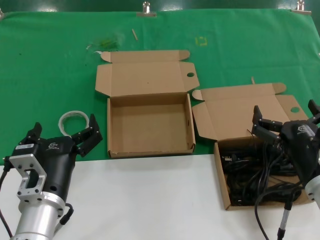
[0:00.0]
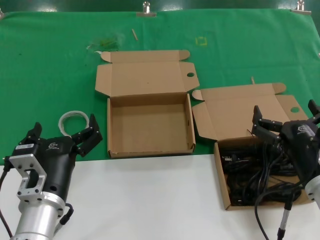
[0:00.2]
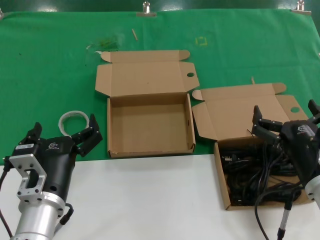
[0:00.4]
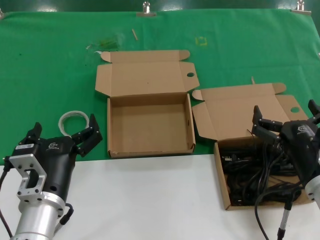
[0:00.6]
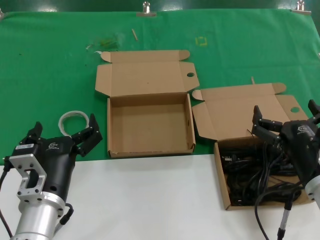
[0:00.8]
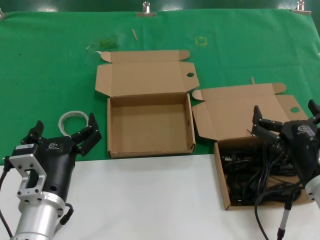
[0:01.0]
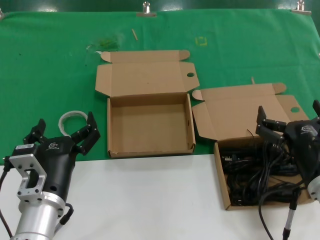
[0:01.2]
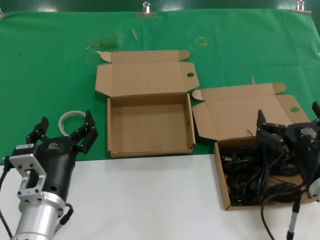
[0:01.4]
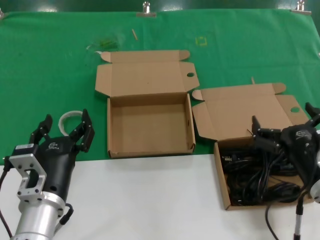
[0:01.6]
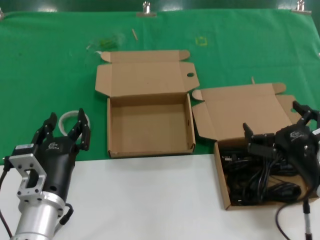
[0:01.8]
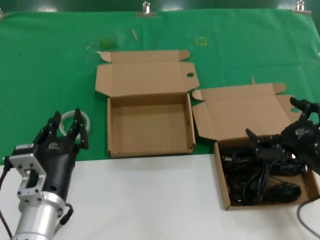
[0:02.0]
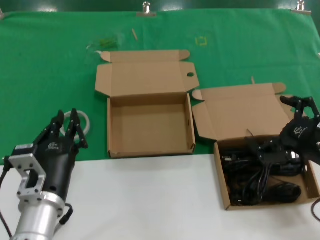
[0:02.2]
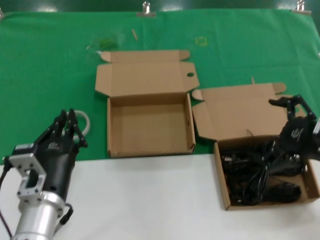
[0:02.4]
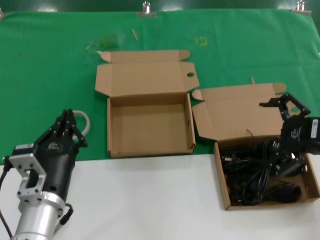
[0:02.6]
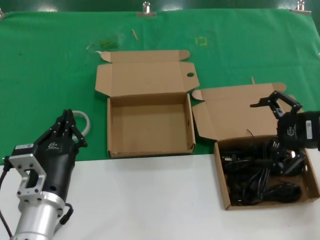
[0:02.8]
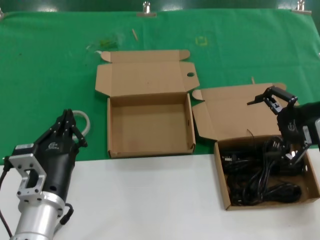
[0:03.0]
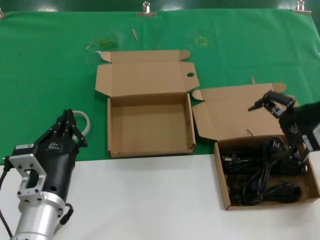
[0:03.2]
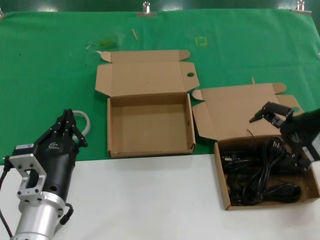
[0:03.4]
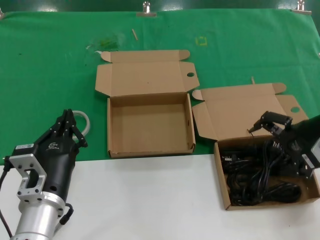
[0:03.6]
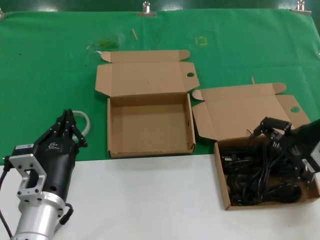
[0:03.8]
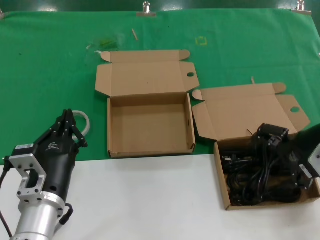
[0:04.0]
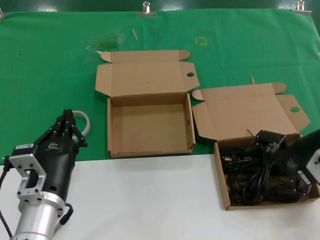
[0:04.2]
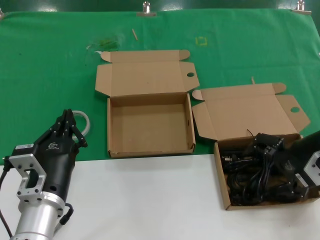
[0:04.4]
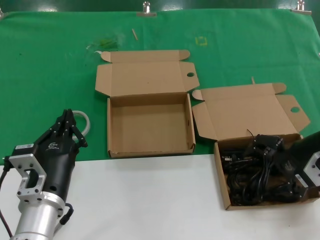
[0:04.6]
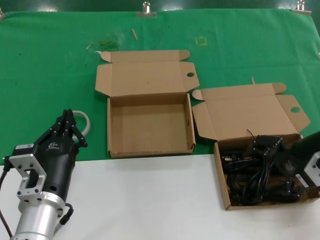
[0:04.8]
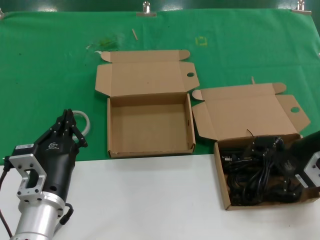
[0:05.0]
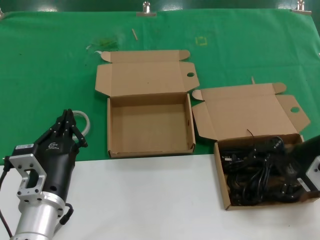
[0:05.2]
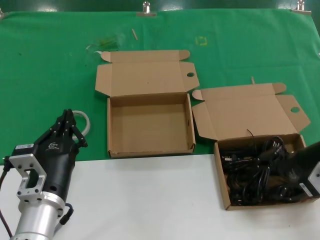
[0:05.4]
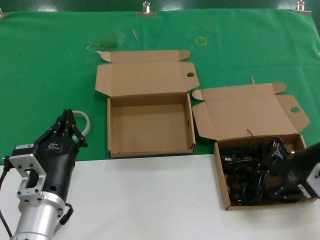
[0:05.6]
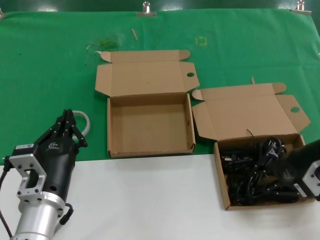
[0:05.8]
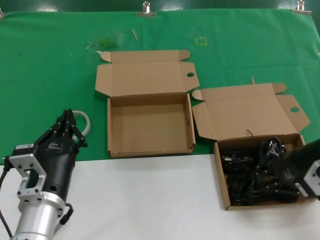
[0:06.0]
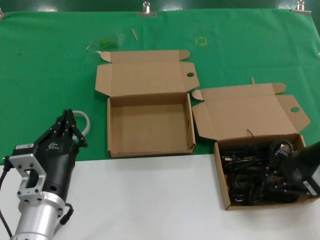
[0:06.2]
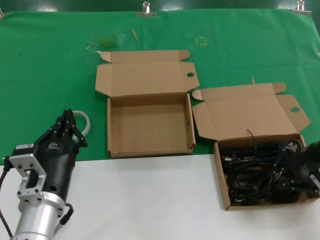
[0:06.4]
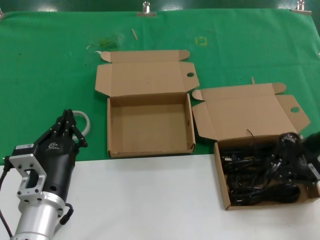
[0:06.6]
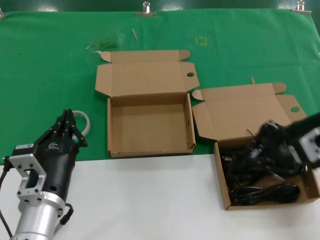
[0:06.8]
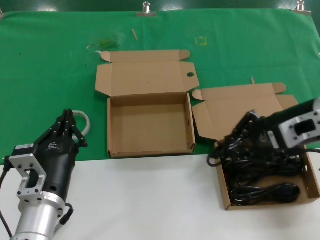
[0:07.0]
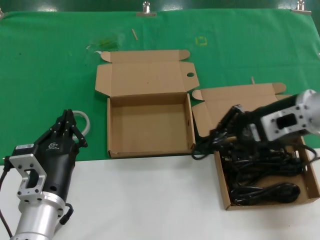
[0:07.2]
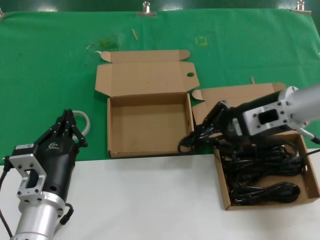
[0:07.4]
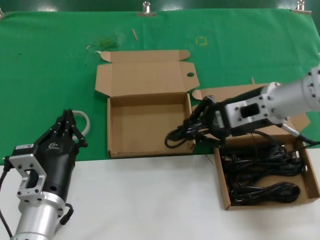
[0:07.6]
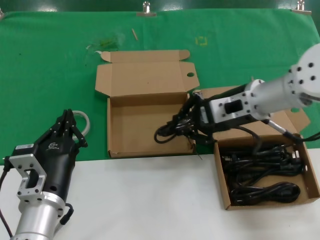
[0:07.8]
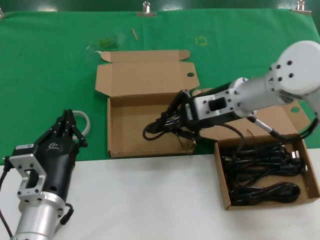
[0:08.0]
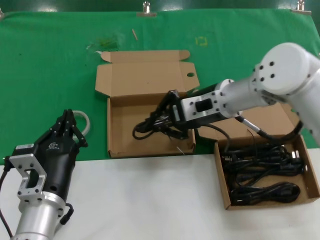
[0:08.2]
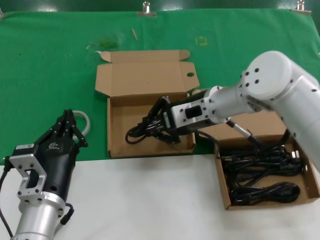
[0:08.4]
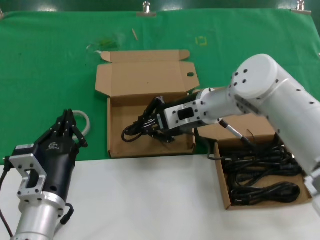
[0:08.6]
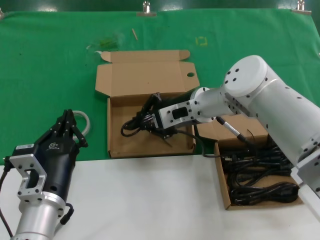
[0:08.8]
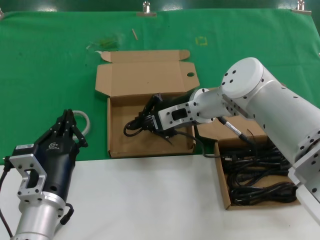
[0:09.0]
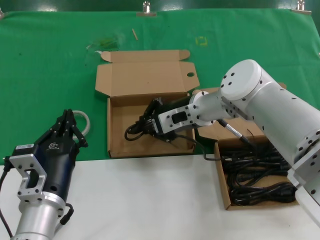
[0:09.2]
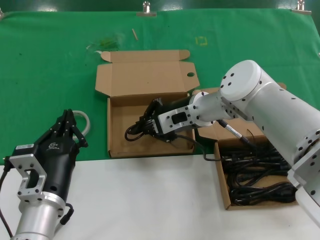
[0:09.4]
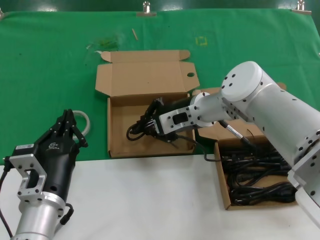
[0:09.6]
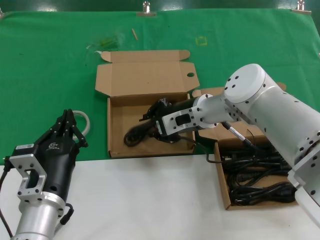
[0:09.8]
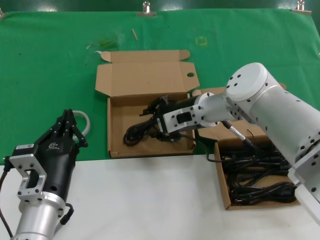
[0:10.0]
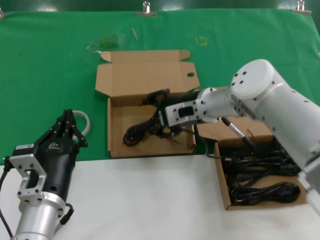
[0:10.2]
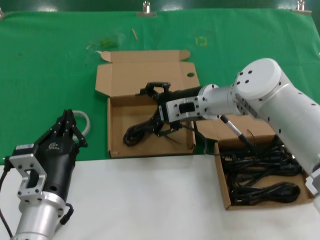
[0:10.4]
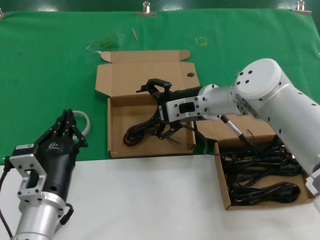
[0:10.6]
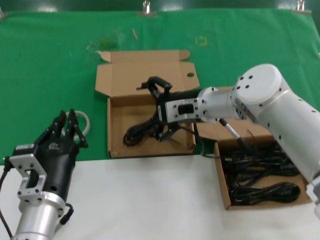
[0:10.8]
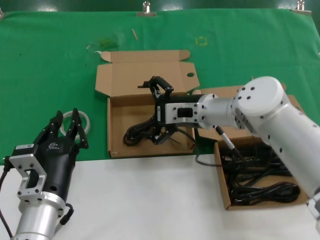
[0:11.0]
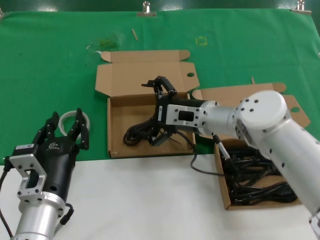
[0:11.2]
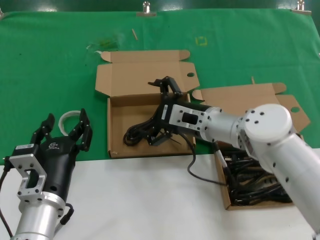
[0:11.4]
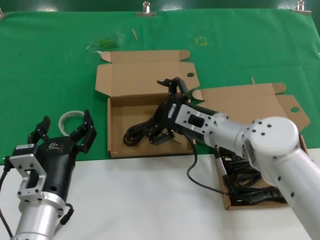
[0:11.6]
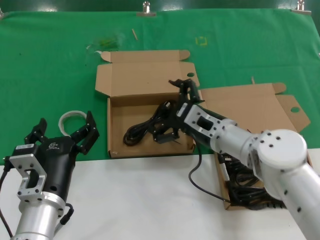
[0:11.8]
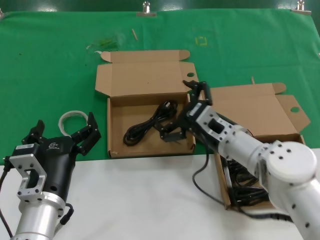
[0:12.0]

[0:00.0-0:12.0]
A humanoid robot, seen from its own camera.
Task of the whole recording: take the parts from the box containing them and put them into an empty box.
Step, 0.0 to 5.8 s: Grasp the data cable.
Step, 6.0 to 9.8 s: Place the data cable in the another box.
0.0 to 1.6 s: The hands move only a little.
1.6 to 3.0 s: The right hand travels upward, forward and to the right by approximately 20 cm.
3.0 to 4.4 s: The right hand heads downward, covering about 5 cm.
4.4 to 6.0 s: The hands make only small movements.
6.0 to 7.6 s: The right hand is displaced to the left and upward by some 15 cm.
7.6 to 9.0 s: The right hand goes about 15 cm to the left, forward and downward.
9.0 to 10.4 s: The hands make only small movements.
10.4 to 12.0 s: The right hand travels backward and downward by approximately 10 cm.

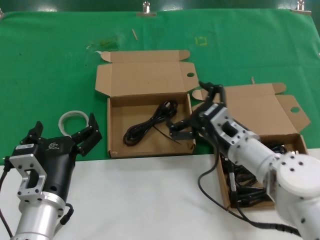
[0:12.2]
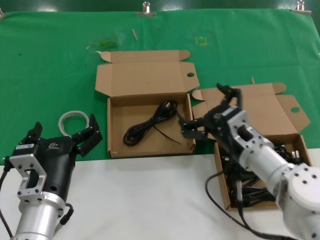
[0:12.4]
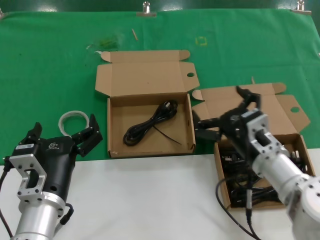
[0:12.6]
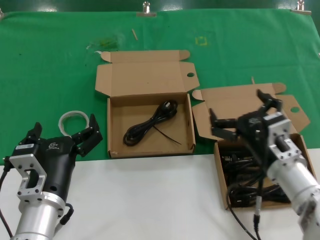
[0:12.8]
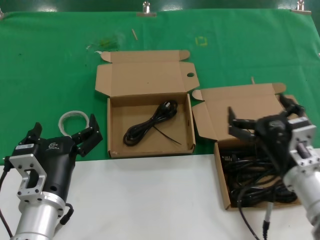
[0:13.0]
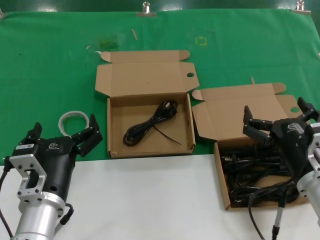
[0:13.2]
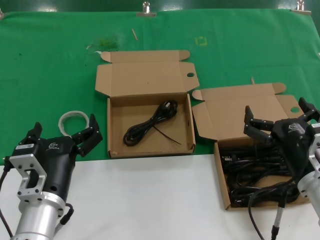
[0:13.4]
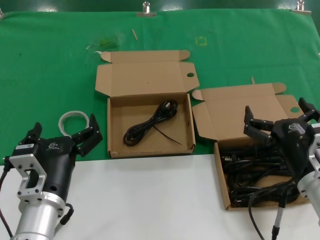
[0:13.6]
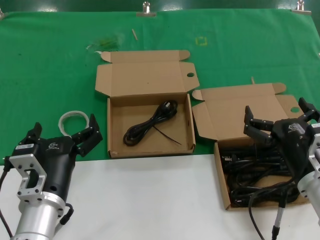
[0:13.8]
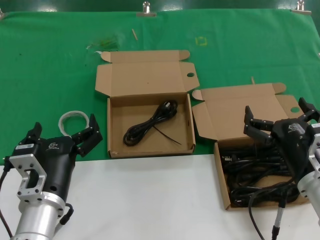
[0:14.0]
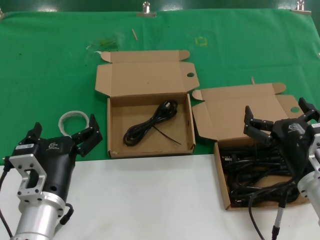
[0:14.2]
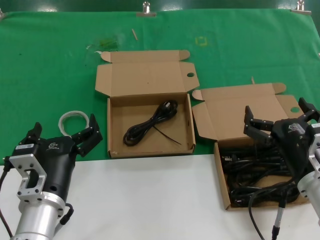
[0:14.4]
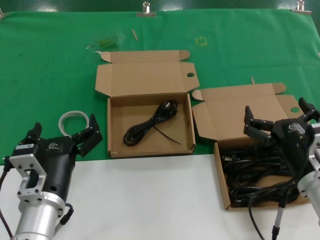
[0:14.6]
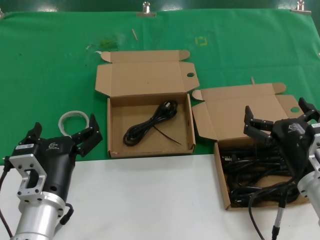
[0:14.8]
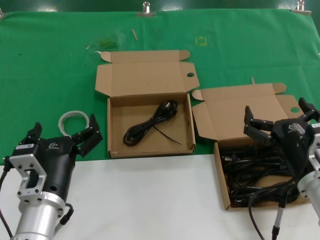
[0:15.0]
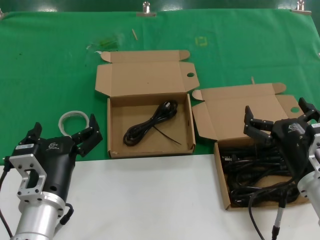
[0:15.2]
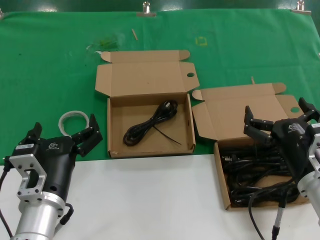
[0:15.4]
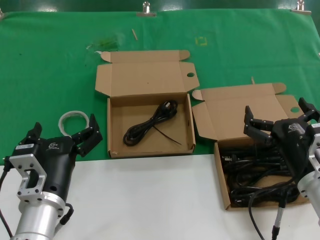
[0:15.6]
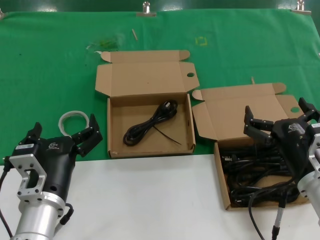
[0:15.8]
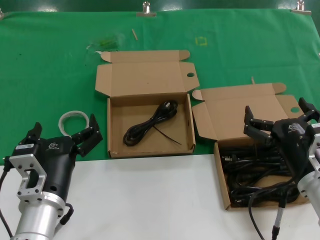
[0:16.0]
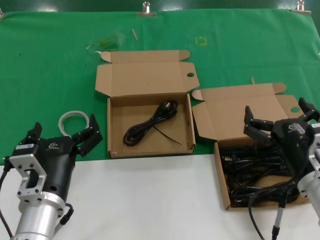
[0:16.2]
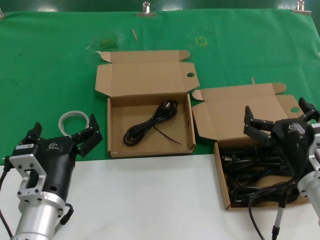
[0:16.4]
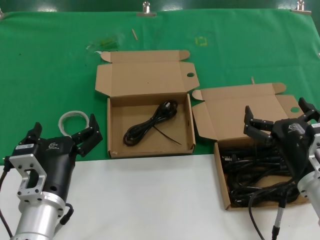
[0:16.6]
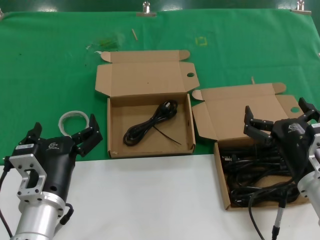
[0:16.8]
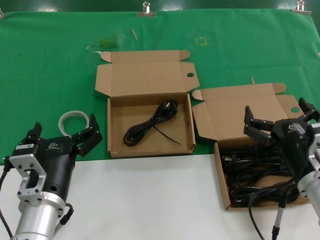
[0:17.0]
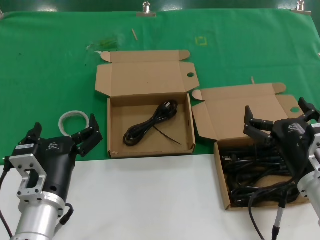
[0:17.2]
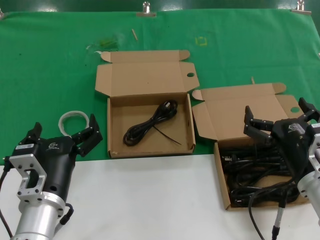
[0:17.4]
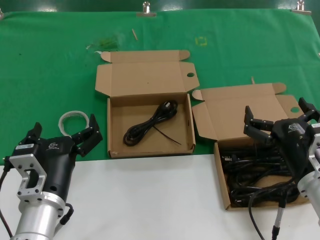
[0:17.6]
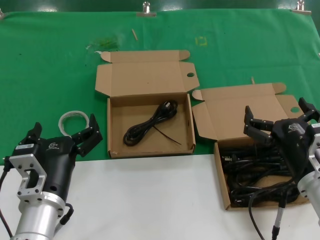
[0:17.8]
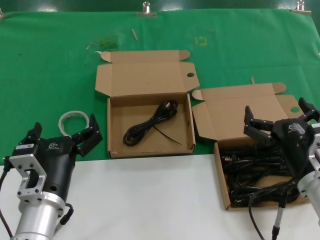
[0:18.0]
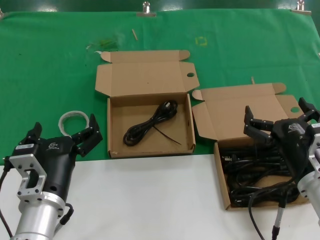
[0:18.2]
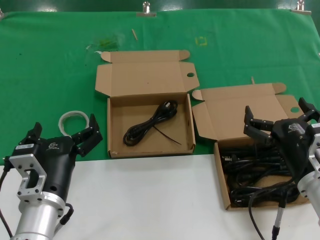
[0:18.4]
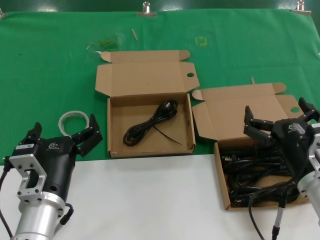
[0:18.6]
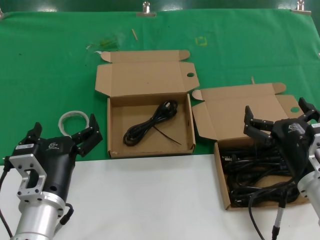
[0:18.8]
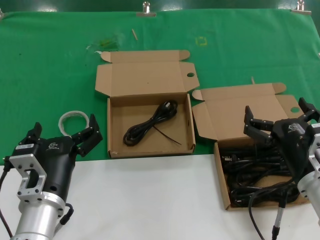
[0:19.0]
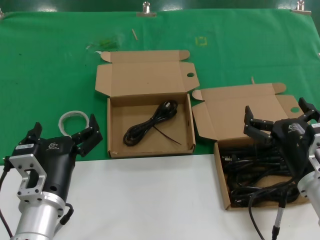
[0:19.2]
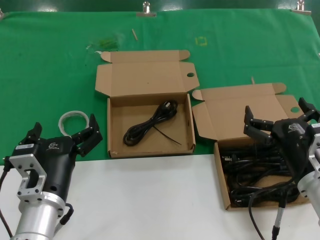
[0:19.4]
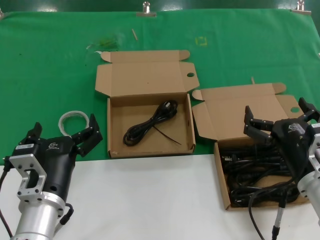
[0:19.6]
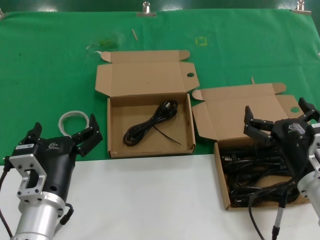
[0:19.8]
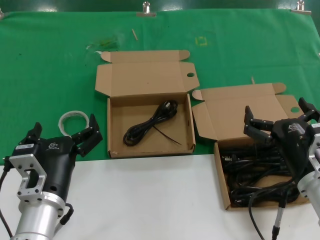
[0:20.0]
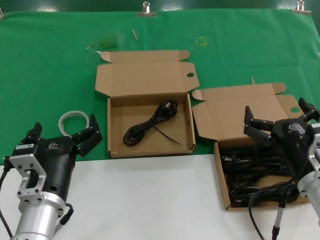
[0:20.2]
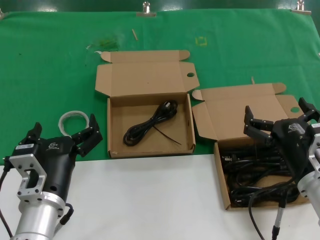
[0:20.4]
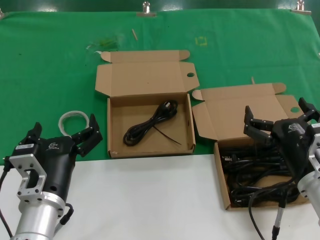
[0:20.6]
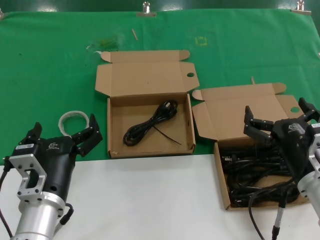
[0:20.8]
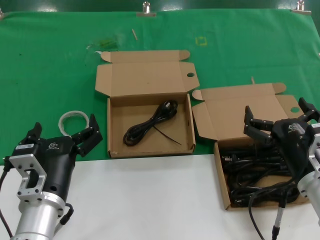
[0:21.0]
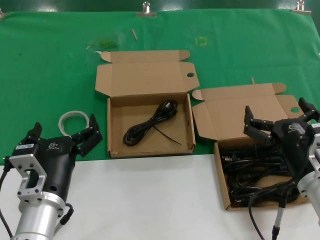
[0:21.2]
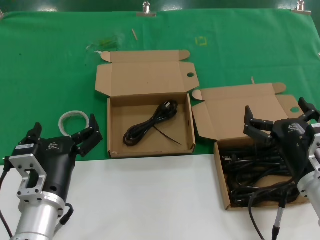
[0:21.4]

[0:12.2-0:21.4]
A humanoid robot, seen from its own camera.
Task of the whole recording: take the parts from the box containing them and put them into an empty box.
12.2 to 13.8 s: The right hand moves backward and to the right, approximately 15 cm.
13.8 to 21.4 s: Both hands stay put.

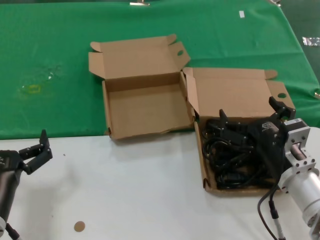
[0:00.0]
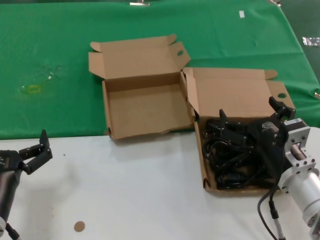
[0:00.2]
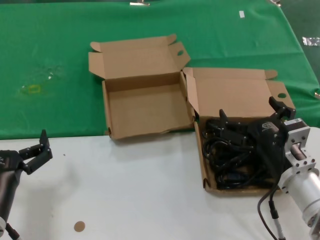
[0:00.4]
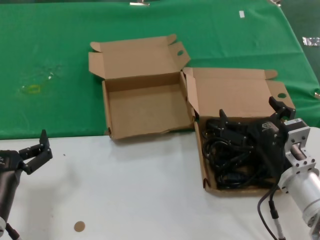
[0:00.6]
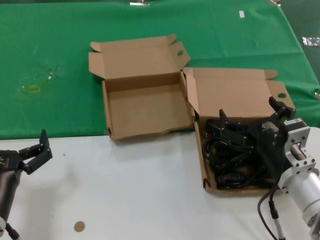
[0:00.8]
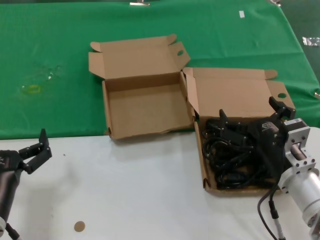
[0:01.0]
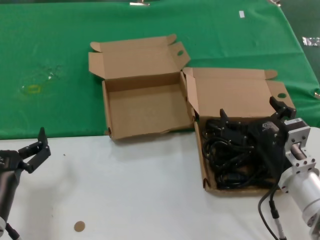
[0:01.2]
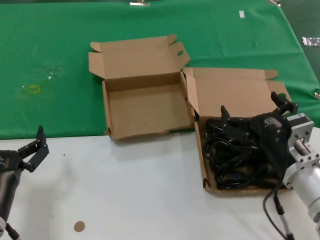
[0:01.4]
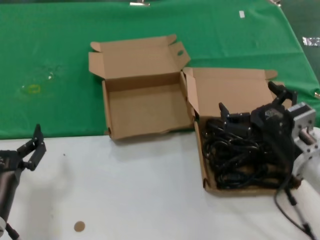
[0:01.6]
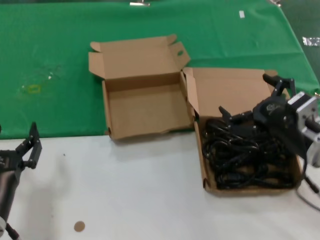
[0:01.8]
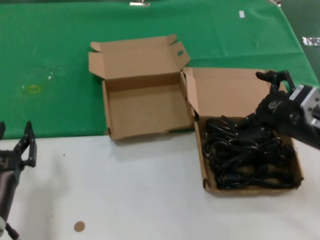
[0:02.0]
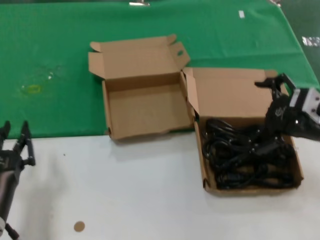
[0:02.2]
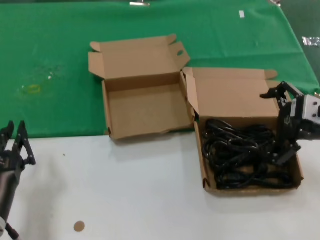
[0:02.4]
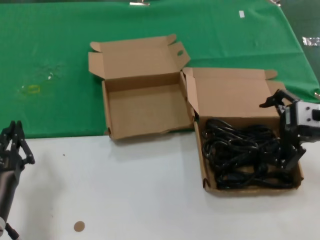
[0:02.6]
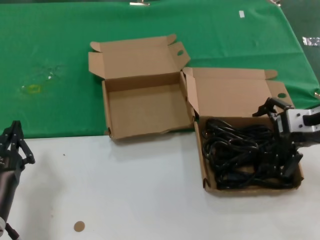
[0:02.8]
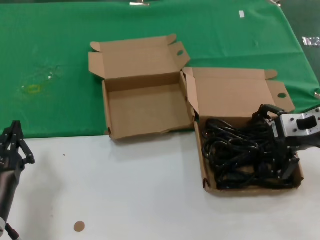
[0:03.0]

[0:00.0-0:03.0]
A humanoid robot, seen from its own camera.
Task of the whole recording: take the parts from the box containing them and put them into an empty box.
0.0 to 1.6 s: The hands move only a little.
1.6 to 3.0 s: The right hand travels upward, forward and to the right by some 15 cm.
